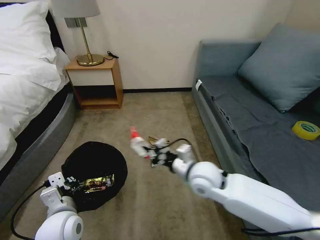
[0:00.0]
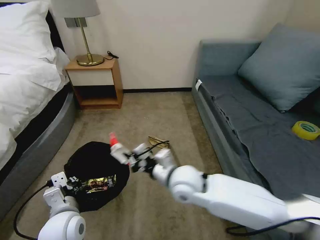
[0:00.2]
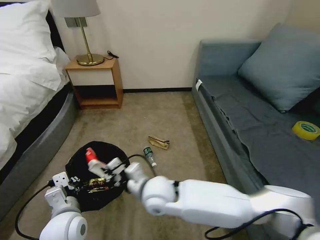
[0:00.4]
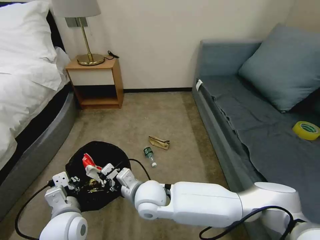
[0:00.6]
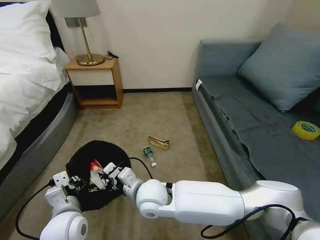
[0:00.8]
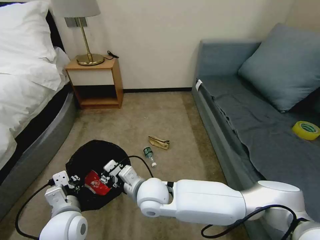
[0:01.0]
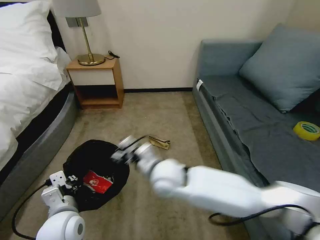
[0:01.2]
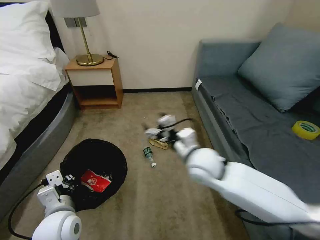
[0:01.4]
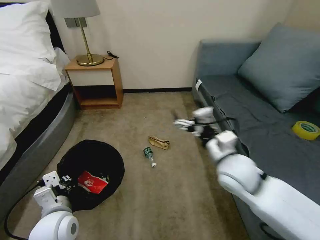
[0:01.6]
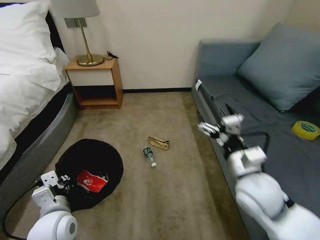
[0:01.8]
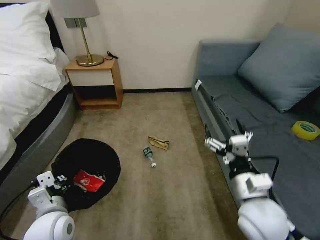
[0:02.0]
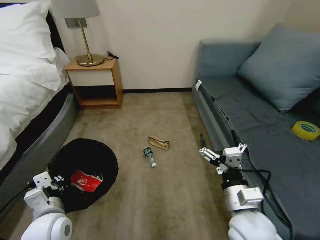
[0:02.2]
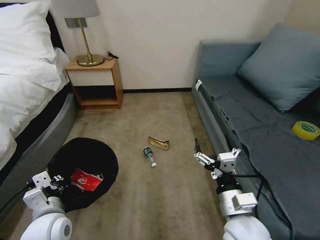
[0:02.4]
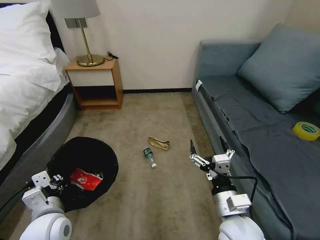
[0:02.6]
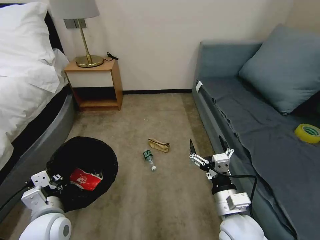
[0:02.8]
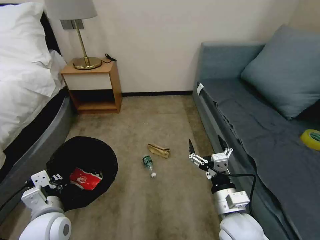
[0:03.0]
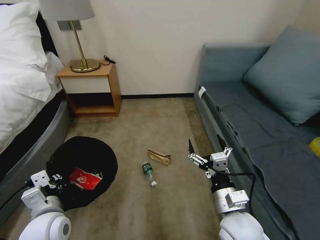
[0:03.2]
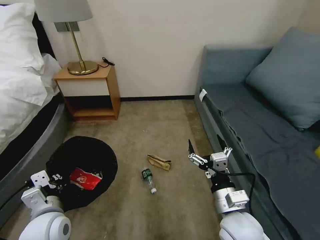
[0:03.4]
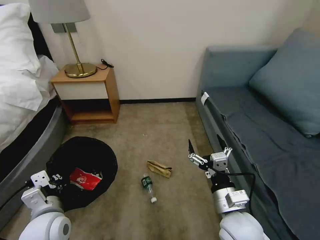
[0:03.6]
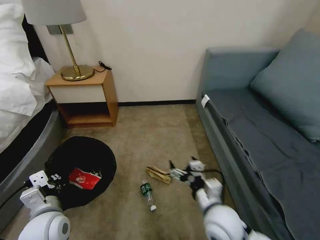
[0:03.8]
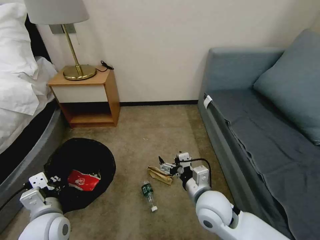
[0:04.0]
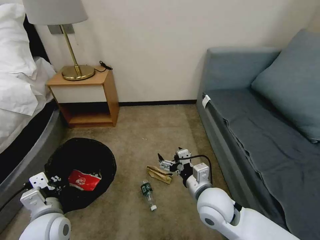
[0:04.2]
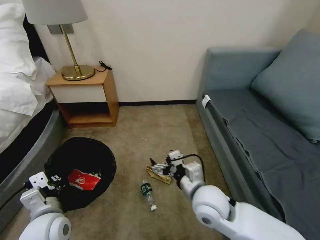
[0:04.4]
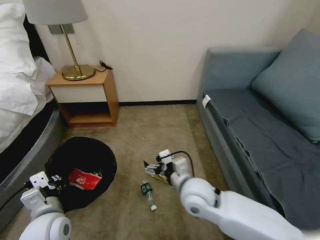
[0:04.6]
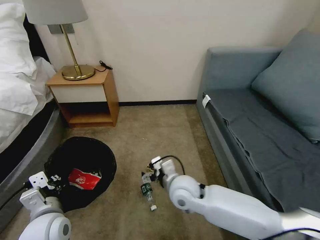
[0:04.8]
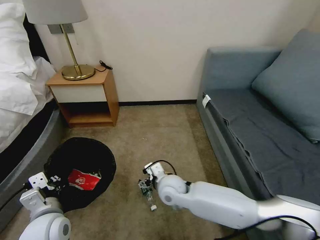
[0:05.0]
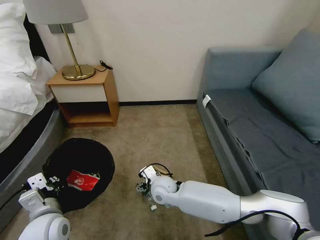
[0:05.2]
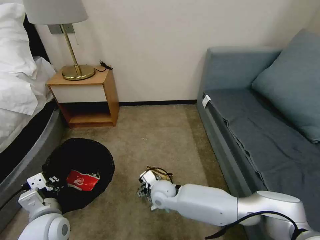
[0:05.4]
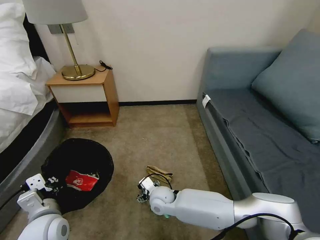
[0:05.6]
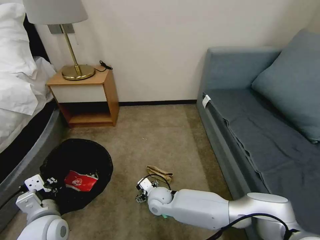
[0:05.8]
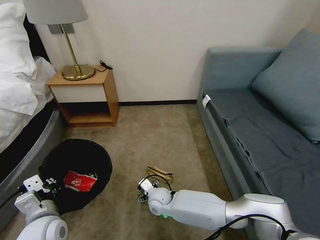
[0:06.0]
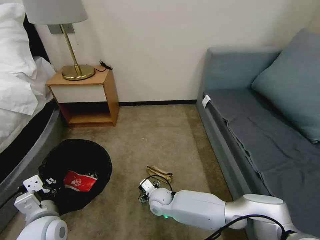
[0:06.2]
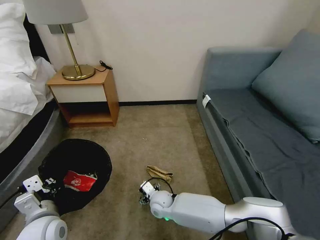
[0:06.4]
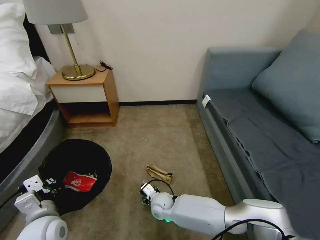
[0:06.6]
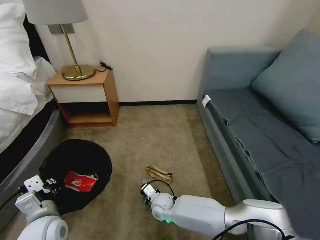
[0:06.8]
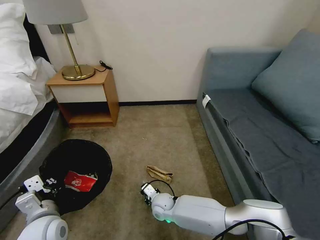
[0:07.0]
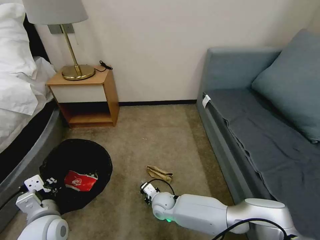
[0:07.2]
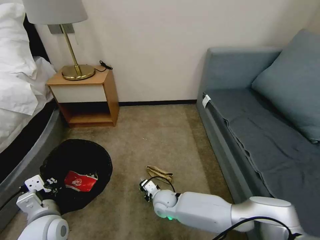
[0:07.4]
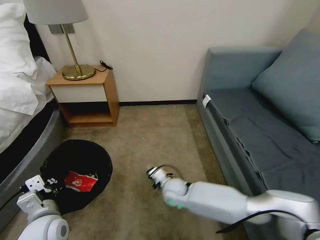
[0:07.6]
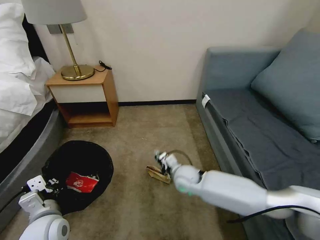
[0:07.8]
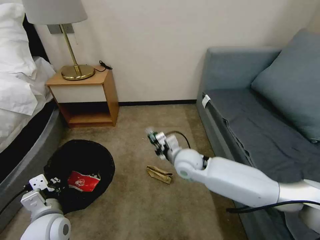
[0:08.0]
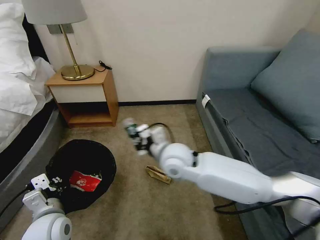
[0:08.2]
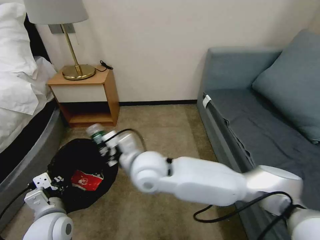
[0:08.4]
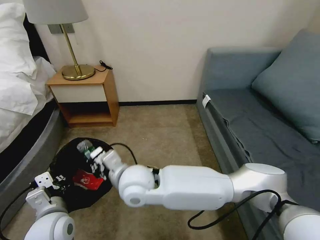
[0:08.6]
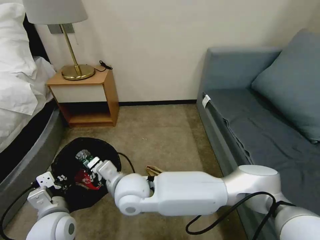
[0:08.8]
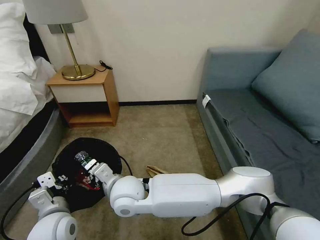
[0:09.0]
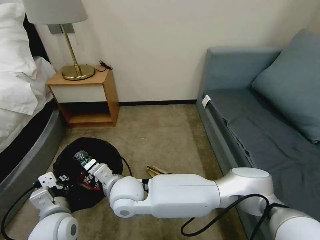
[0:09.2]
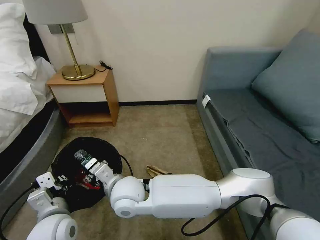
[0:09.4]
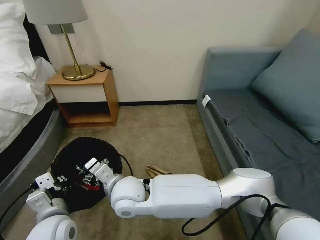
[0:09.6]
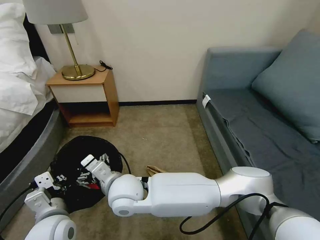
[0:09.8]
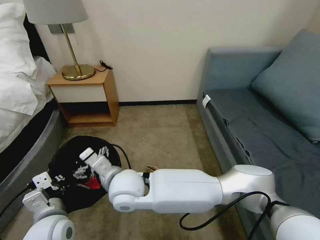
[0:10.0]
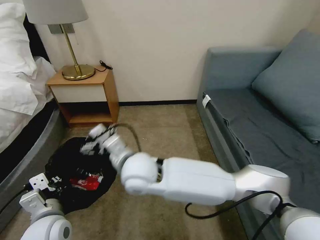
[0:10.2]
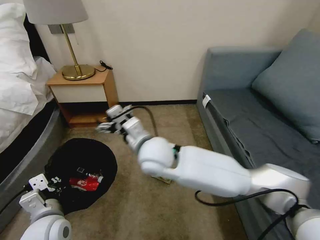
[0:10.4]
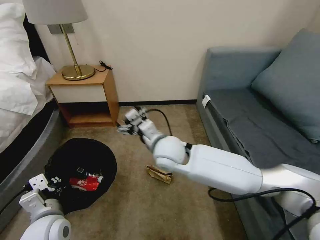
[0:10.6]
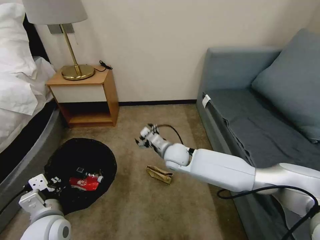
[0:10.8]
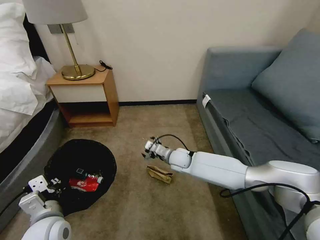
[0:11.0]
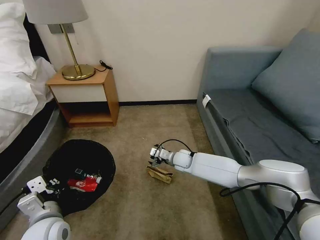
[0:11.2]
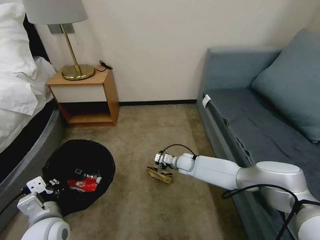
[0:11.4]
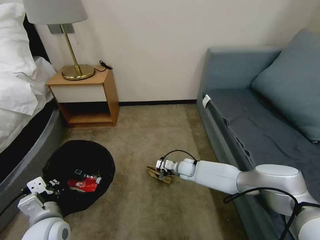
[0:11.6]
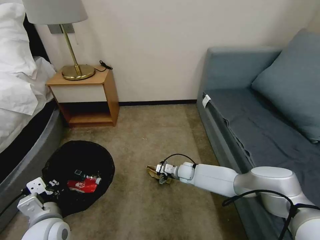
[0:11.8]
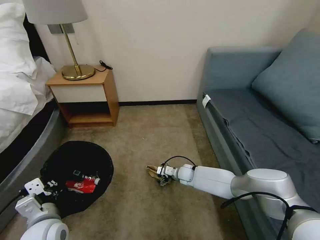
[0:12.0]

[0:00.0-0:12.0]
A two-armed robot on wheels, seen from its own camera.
Task of the whole recording: Pick up the trash bin, then pick up the garbage on the floor and place it into the trash bin.
0:00.0 to 0:01.6: The right gripper shifts some 5 cm upward, travels to the left and back again, approximately 15 cm each way, and opens up.
0:01.6 to 0:03.0: The right gripper shifts approximately 15 cm backward and downward.
0:03.0 to 0:04.4: The right gripper moves forward and to the left, approximately 10 cm.
0:04.4 to 0:06.0: The right gripper heads downward, to the left and forward, covering roughly 25 cm.
0:06.0 to 0:07.6: The right gripper changes place by about 5 cm, and closes up.
0:07.6 to 0:09.0: The right gripper shifts about 25 cm upward and to the left.
0:09.0 to 0:10.4: The right gripper shifts about 15 cm upward, to the right and forward, and opens.
0:10.4 to 0:12.0: The right gripper goes some 35 cm downward and to the right.

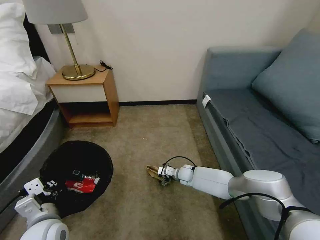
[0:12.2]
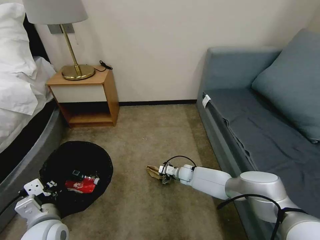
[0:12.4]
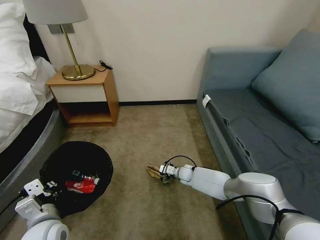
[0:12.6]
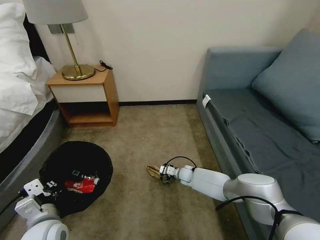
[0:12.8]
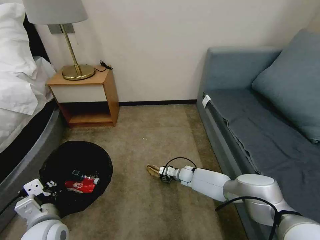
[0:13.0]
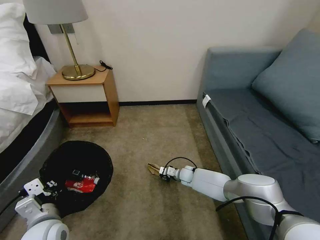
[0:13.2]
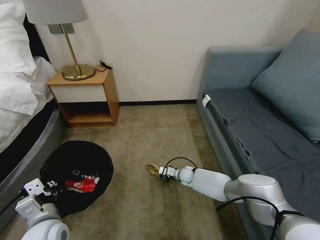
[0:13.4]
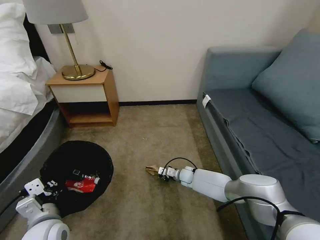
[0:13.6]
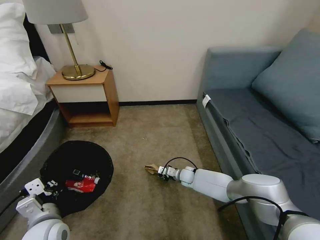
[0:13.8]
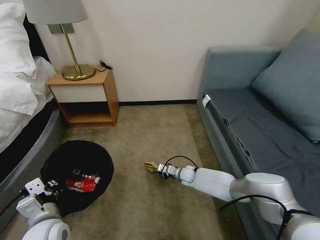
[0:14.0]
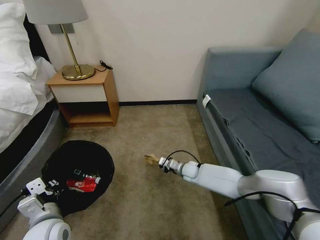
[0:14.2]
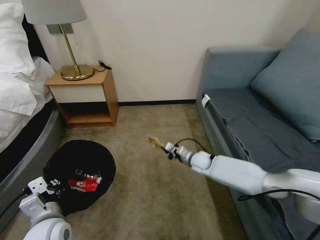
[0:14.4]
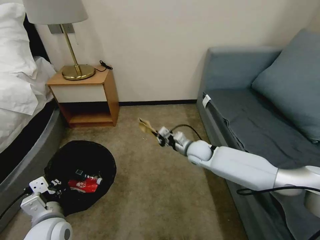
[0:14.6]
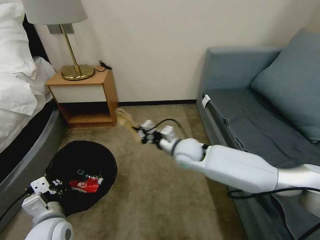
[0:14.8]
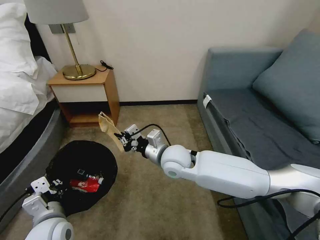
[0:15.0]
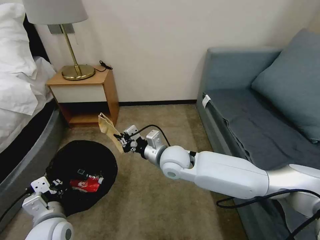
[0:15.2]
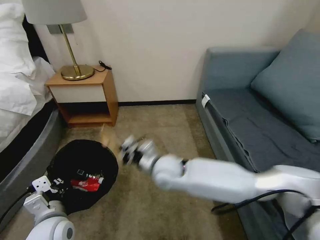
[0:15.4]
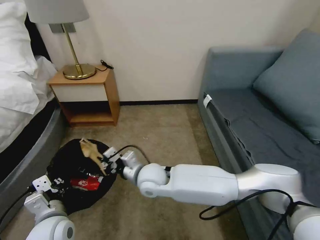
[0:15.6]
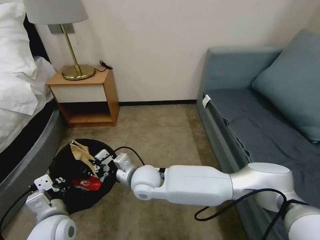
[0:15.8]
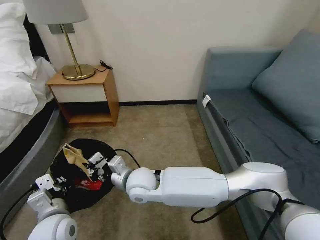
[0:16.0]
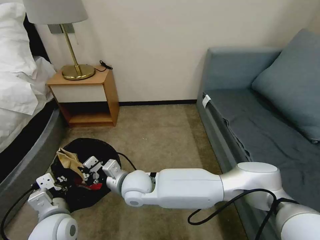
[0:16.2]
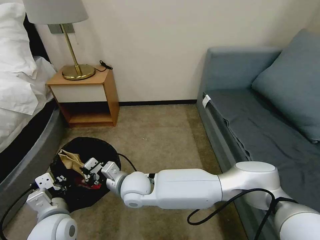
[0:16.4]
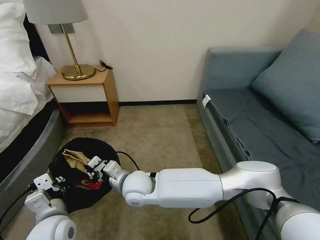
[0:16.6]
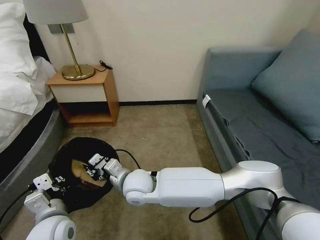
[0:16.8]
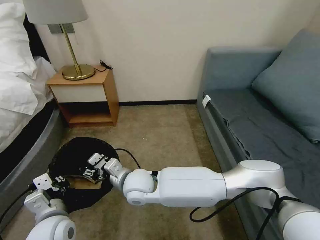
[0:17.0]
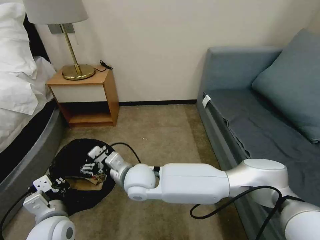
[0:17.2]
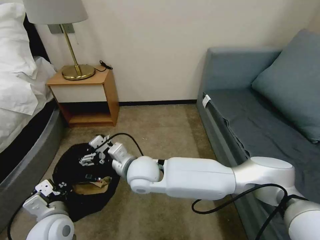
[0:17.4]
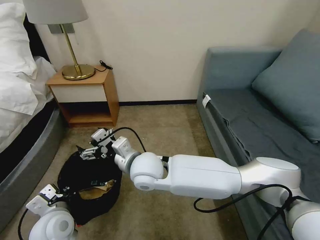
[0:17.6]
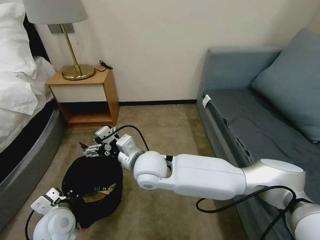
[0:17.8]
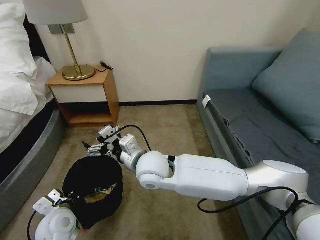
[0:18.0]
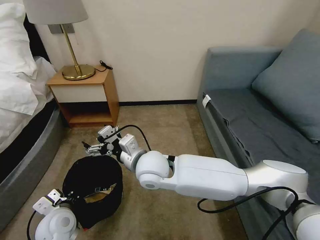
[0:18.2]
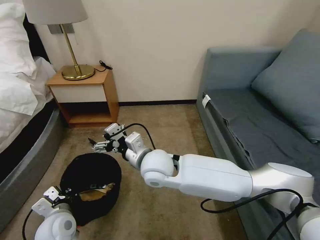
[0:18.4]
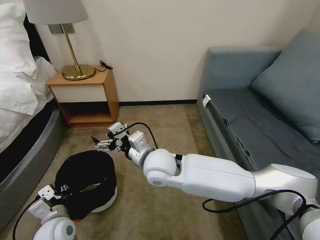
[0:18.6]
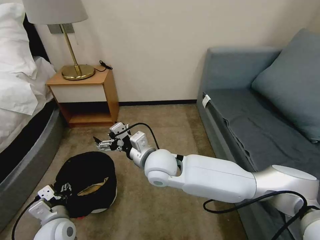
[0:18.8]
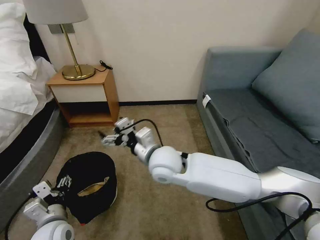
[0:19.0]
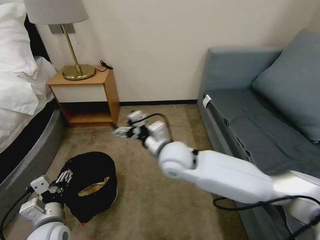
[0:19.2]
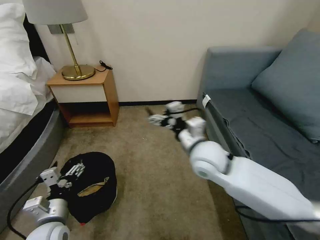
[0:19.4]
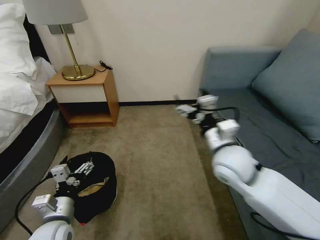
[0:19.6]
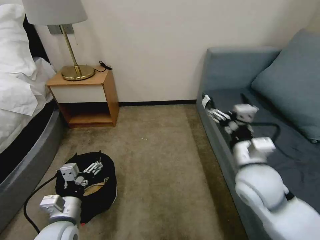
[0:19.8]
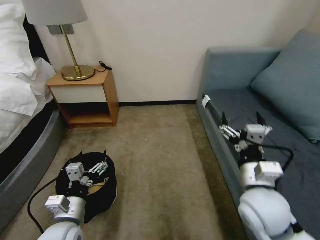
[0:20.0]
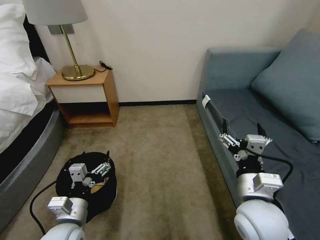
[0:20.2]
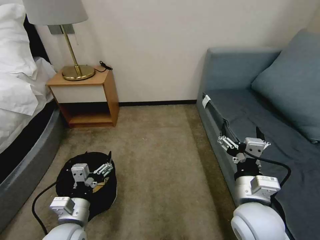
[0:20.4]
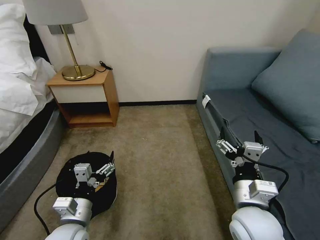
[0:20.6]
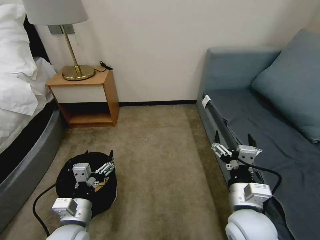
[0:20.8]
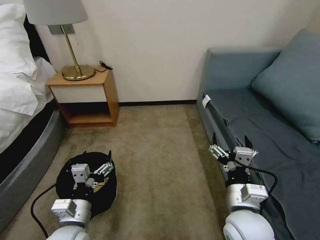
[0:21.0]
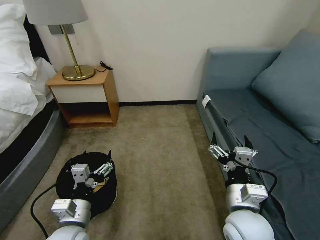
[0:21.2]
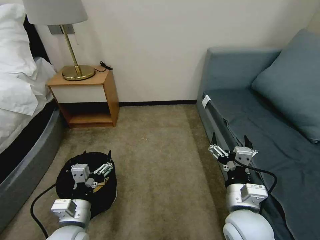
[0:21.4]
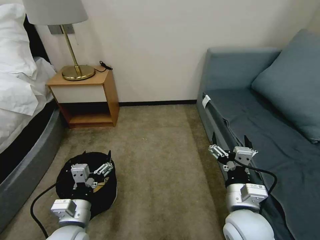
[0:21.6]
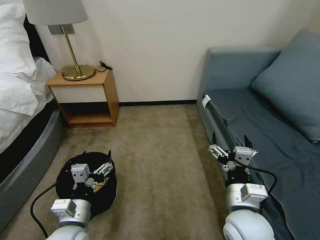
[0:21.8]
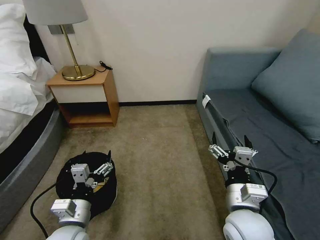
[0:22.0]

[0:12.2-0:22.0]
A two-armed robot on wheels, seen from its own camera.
Task of the whole recording: Pick up the trash bin, then pick up the garbage on the floor and place it into the trash bin.
0:12.2 to 0:13.6: The right gripper closes up.
0:13.6 to 0:15.0: The right gripper goes some 30 cm upward.
0:15.0 to 0:16.4: The right gripper heads to the left, backward and downward, covering some 15 cm.
0:16.4 to 0:17.8: The right gripper is displaced upward by some 10 cm, and opens its fingers. Meanwhile the left gripper moves approximately 5 cm.
0:17.8 to 0:19.2: The right gripper moves to the right, roughly 10 cm. Meanwhile the left gripper opens.
0:19.2 to 0:20.6: The right gripper goes roughly 20 cm backward and to the right, while the left gripper is displaced to the right by approximately 5 cm.
0:20.6 to 0:22.0: The grippers stay close to where they were, moving slightly.
